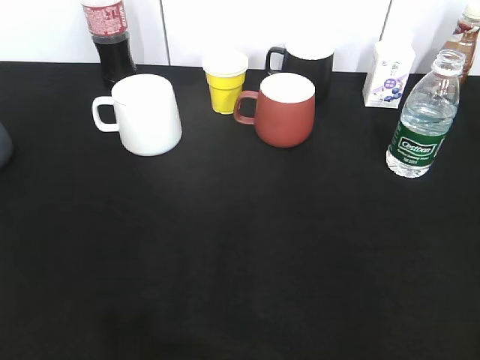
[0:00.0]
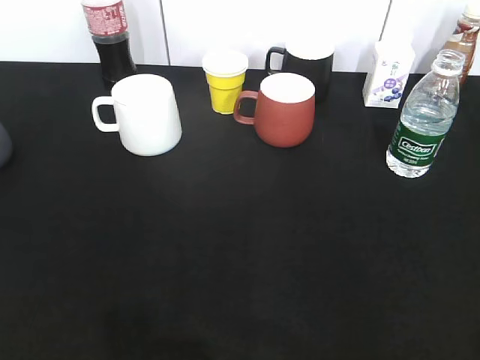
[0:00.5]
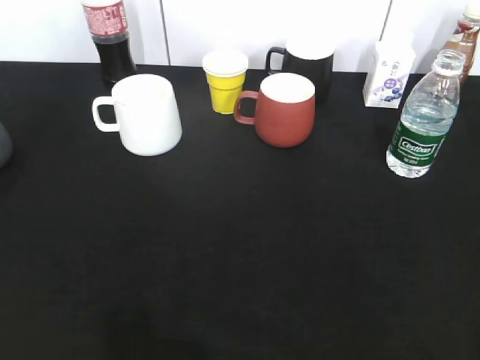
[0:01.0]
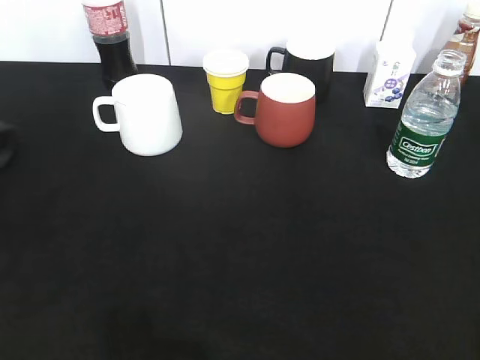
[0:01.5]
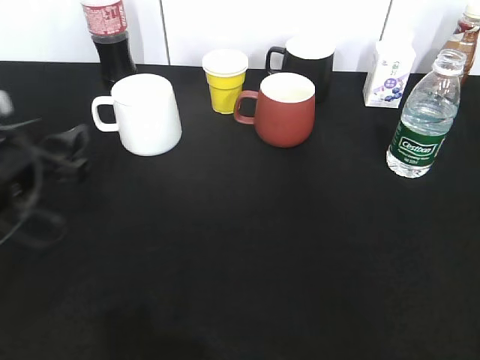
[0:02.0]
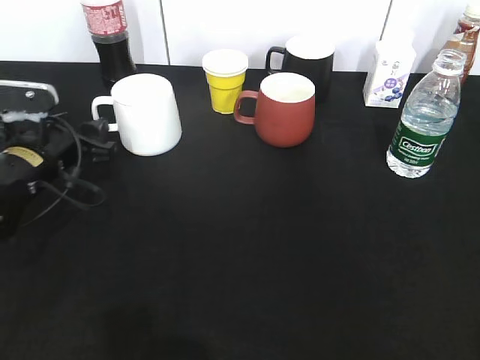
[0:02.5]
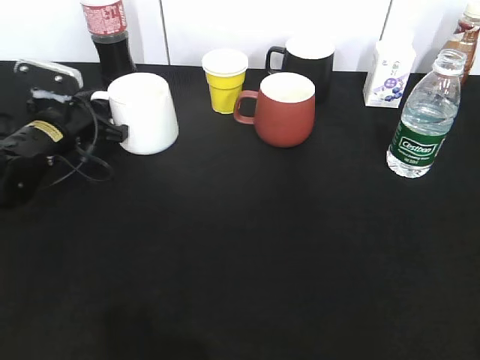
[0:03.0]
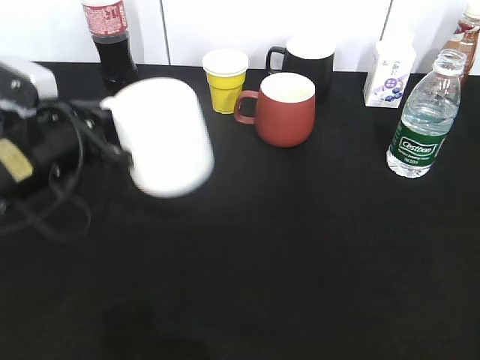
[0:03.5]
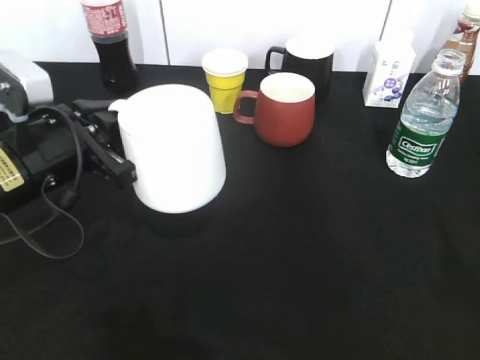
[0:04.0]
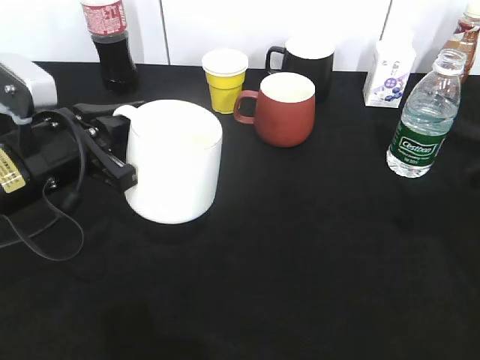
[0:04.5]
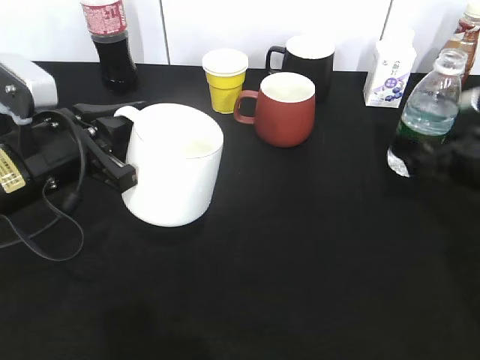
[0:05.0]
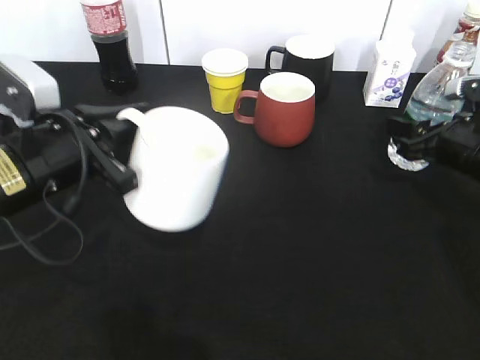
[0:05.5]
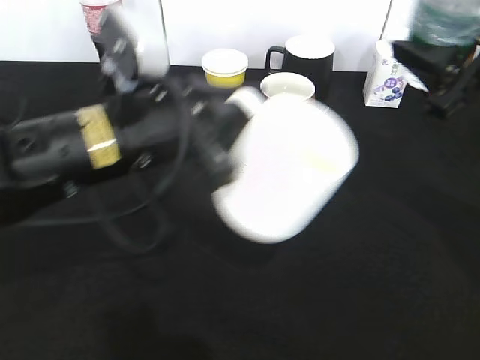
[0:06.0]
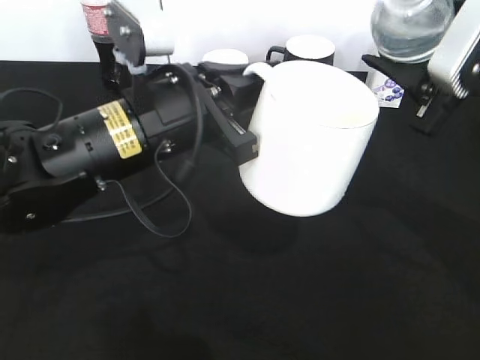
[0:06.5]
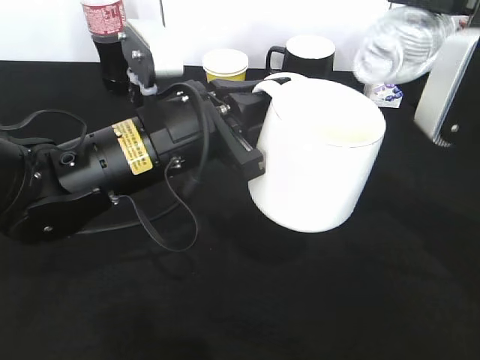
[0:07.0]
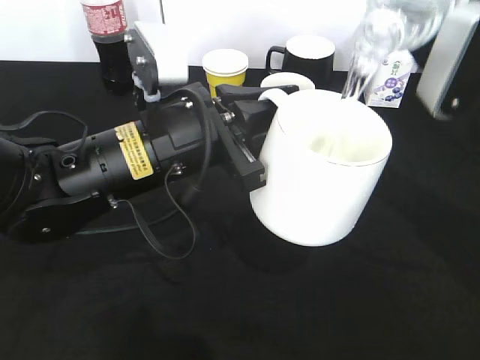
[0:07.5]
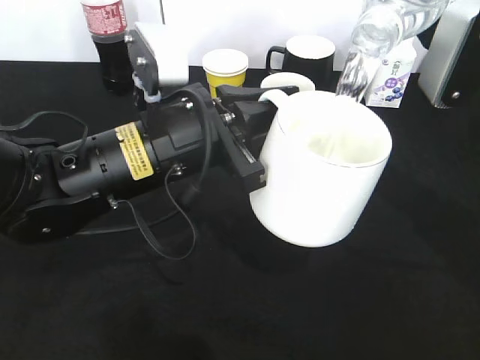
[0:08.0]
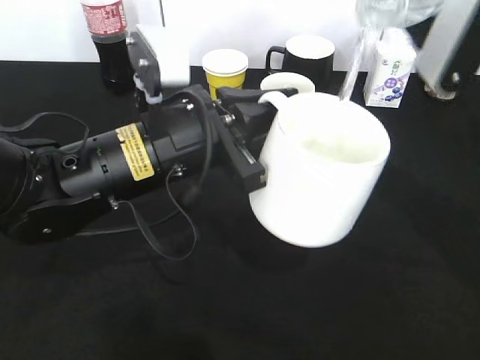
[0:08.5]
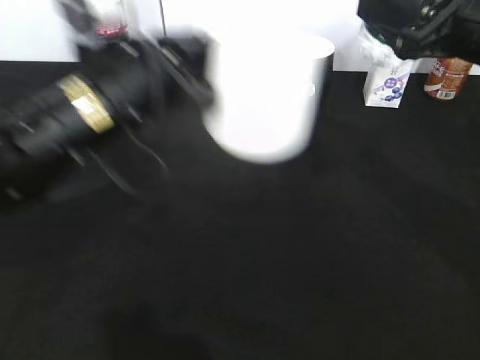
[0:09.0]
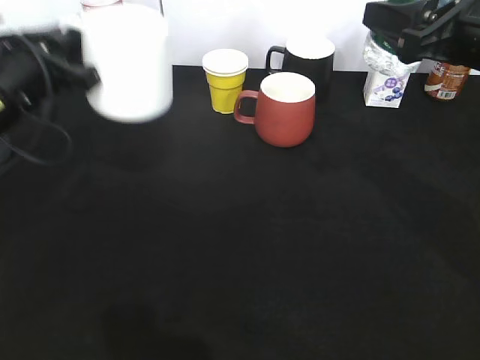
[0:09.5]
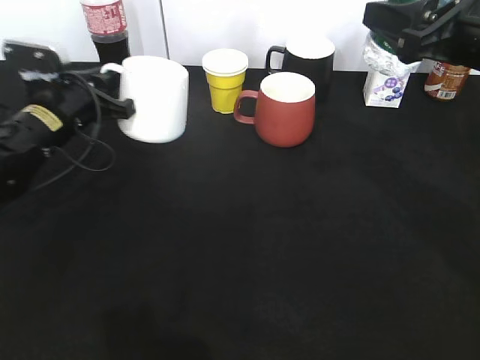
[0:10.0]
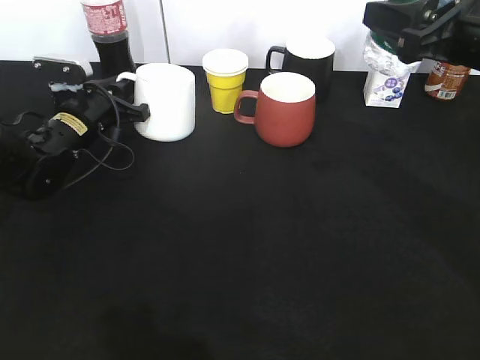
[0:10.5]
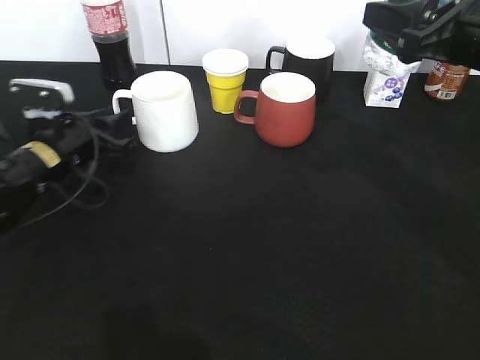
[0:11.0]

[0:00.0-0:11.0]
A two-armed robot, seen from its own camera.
Step, 0:01.0 to 0:03.0: Grasp the white cup with left gripper.
Step, 0:04.0 to 0:05.0: Grasp the bottle with water with right gripper.
Step, 0:05.5 to 0:09.0: Pour the water from bottle to cup with right gripper.
Step, 0:09.5 to 0:10.5: Place the white cup on the table with left gripper.
0:00.0 to 0:02.0: The left gripper heads forward and downward, covering approximately 30 cm, and opens its fingers.
0:02.0 to 0:03.5: The left gripper reaches approximately 15 cm forward, then returns, and closes up.
0:03.5 to 0:05.5: The right gripper moves forward and downward, some 35 cm, and closes its fingers.
0:05.5 to 0:07.5: The left gripper heads to the right, covering some 10 cm. The right gripper moves upward, some 15 cm.
0:07.5 to 0:09.0: The left gripper ends up some 5 cm from where it was.
0:09.0 to 0:11.0: The left gripper travels downward, to the left and forward by approximately 20 cm.

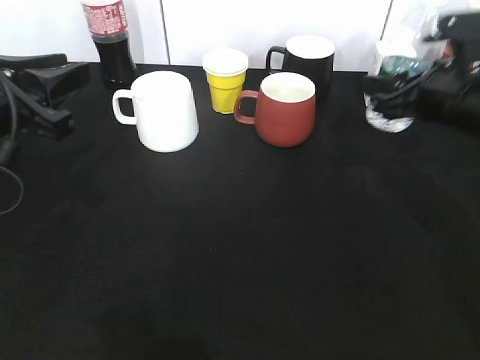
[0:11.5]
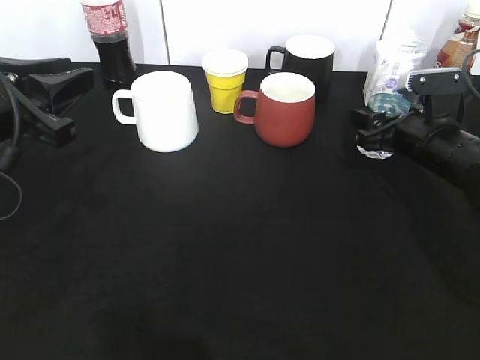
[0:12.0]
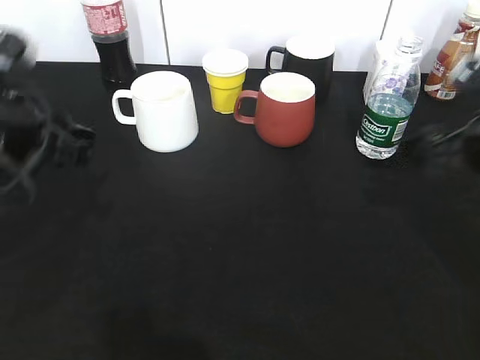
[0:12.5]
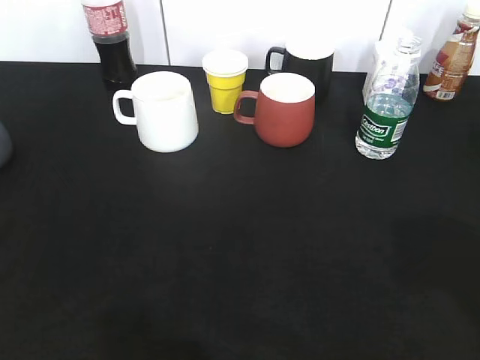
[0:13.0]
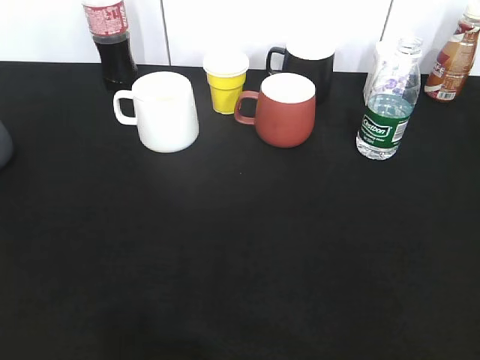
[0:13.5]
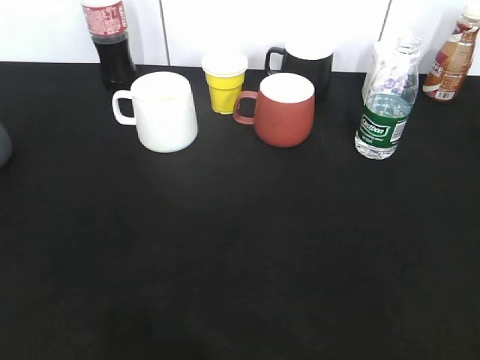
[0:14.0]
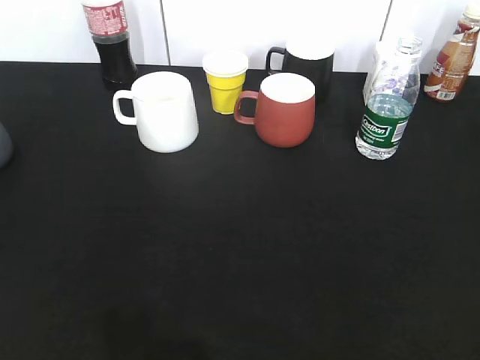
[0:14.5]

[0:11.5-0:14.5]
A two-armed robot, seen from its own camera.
0:11.5 to 0:13.0: The left gripper heads backward and upward, covering roughly 20 cm. Meanwhile the right gripper heads backward and upward, covering about 30 cm, and opens its fingers.

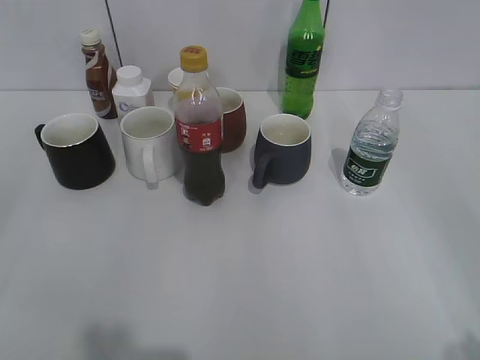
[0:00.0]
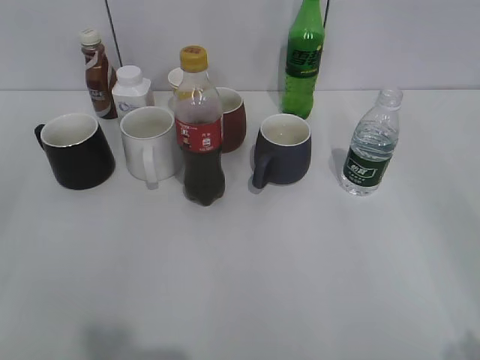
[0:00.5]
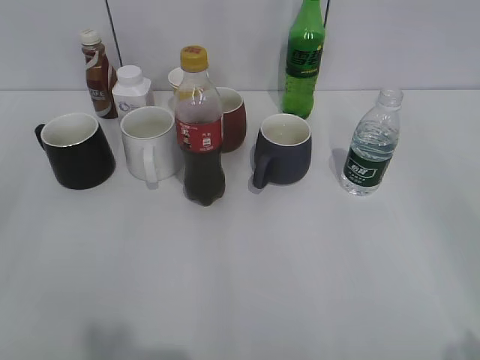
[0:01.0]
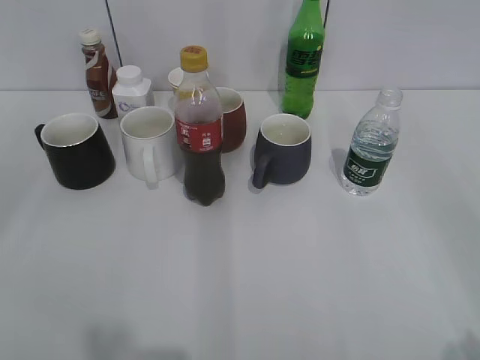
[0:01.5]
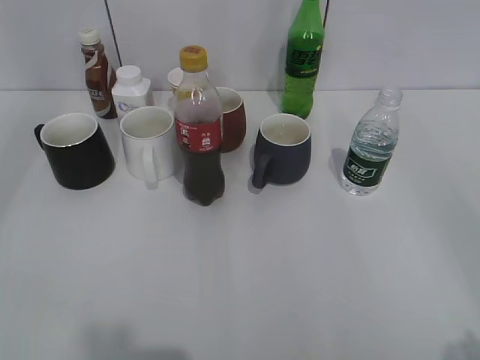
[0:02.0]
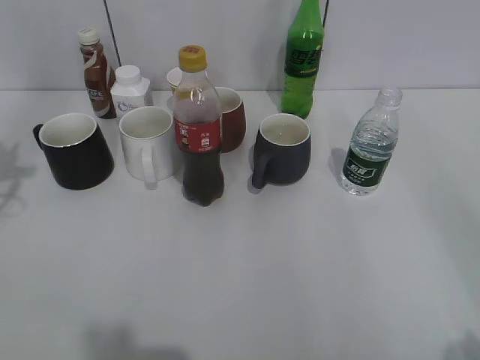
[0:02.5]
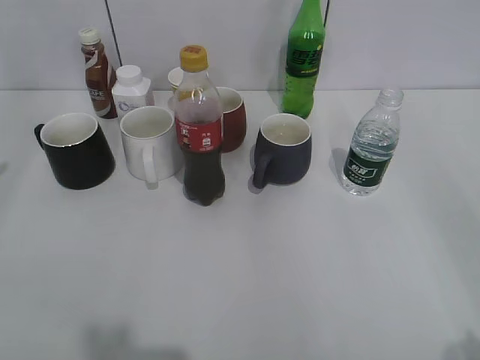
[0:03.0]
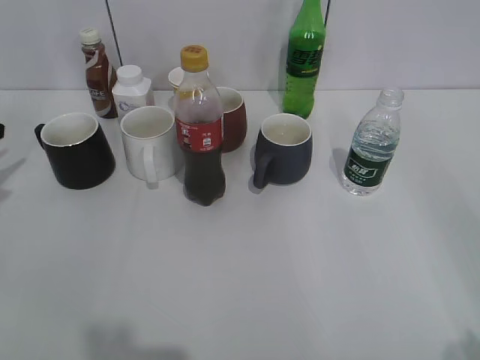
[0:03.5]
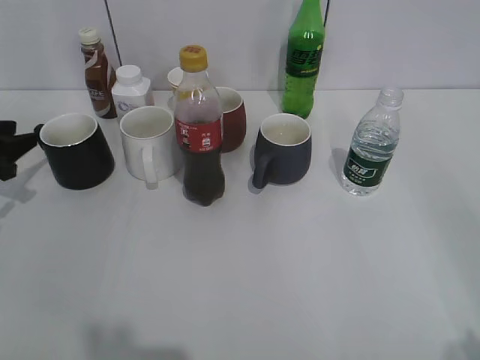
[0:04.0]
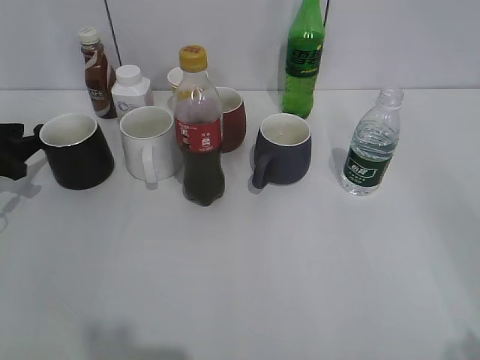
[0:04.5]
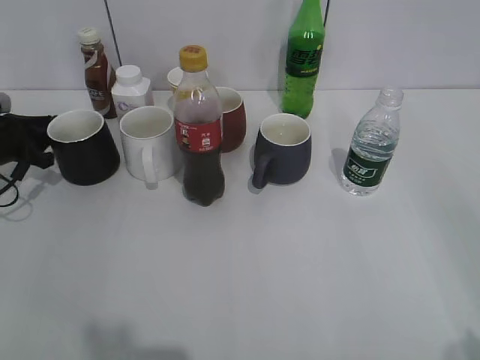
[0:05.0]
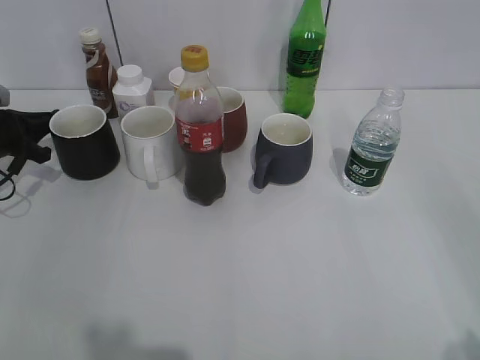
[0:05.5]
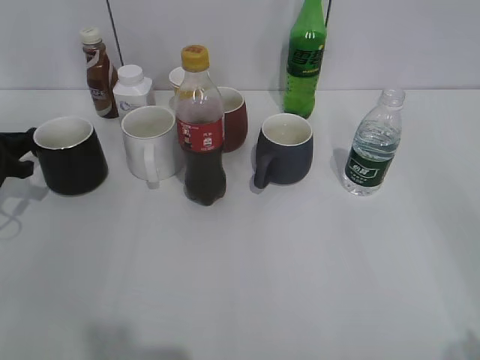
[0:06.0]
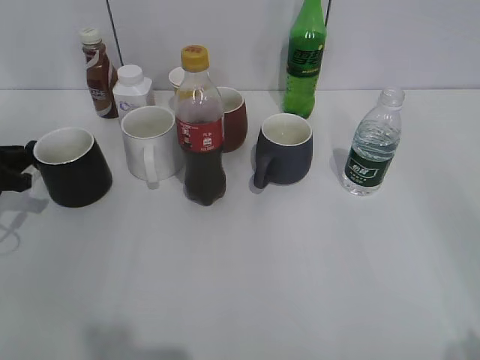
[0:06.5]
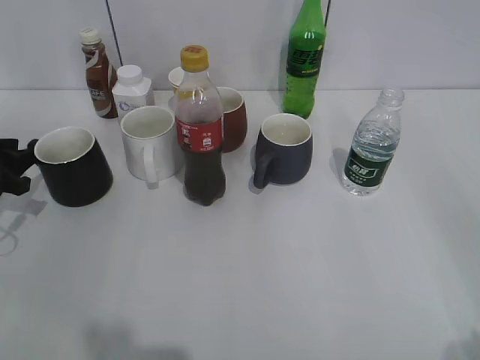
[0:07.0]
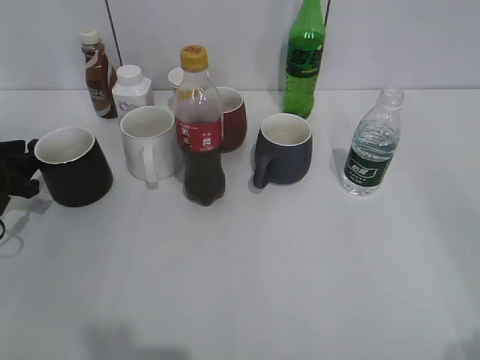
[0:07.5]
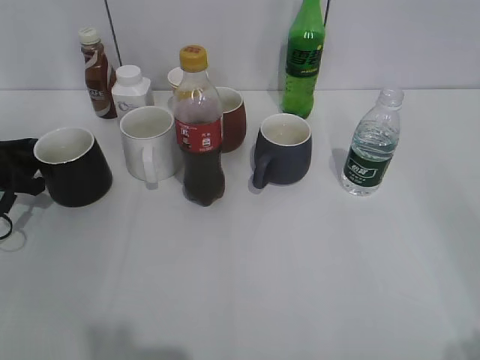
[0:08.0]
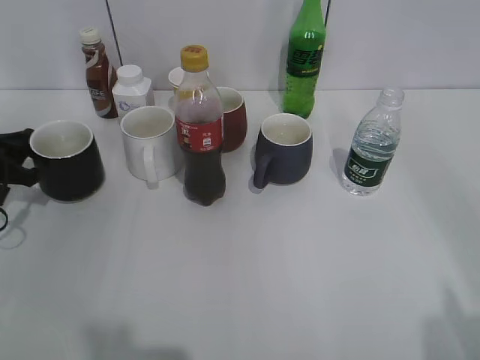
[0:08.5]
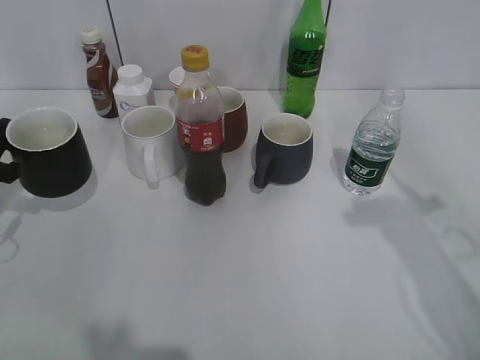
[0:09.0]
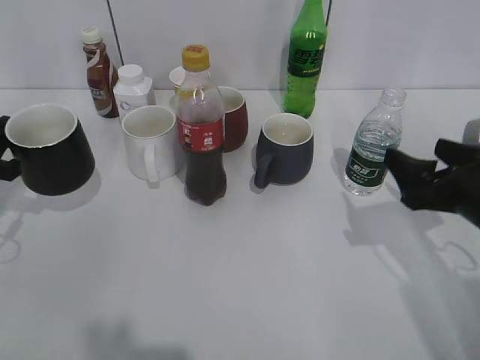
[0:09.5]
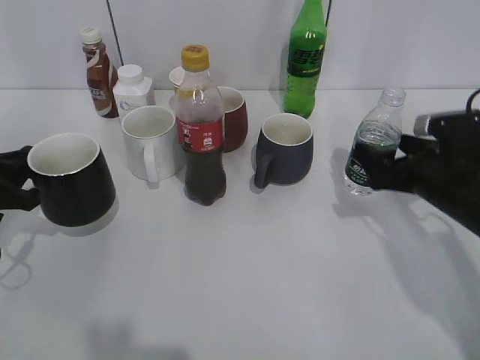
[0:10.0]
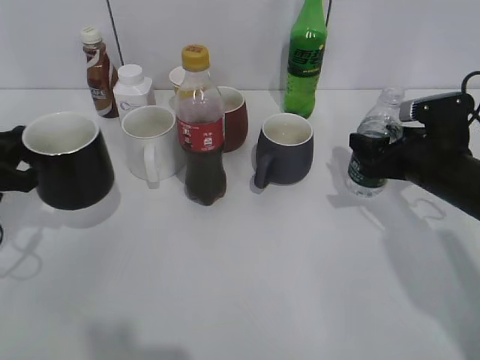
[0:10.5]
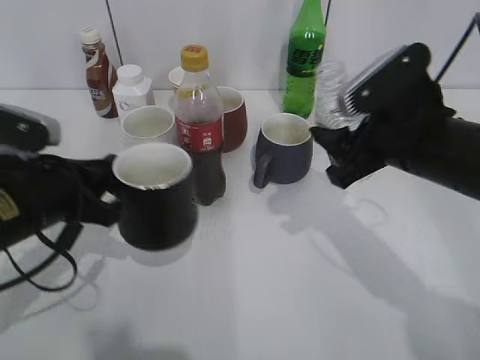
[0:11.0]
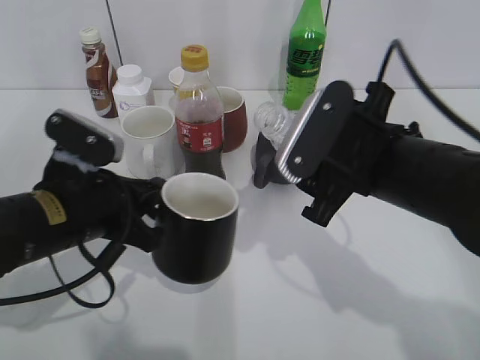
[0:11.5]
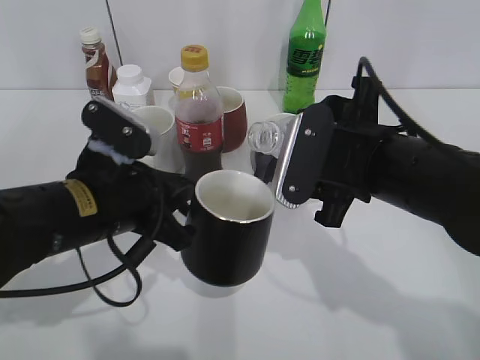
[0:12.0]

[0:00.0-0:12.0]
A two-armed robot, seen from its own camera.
Step, 0:01.5 to 0:05.0: Grasp the black cup with left gripper.
Step, 0:05.5 to 0:07.0: Place the black cup on the table with left gripper.
Step, 0:09.5 to 0:10.0: Grasp the bottle with water with right gripper.
0:02.0 to 0:04.0: The left gripper travels forward and downward by about 35 cm, and opens up.
0:04.0 to 0:06.0: The left gripper closes up.
0:06.0 to 0:08.0: The left gripper opens its fingers. The right gripper closes its fingers.
0:08.0 to 0:10.0: The right gripper moves forward and downward, some 35 cm, and opens up; the left gripper moves backward, roughly 5 cm, and closes its fingers.
0:10.0 to 0:12.0: The right gripper travels to the left and upward by approximately 15 cm, and closes its fingers, while the left gripper moves to the right, roughly 20 cm.
